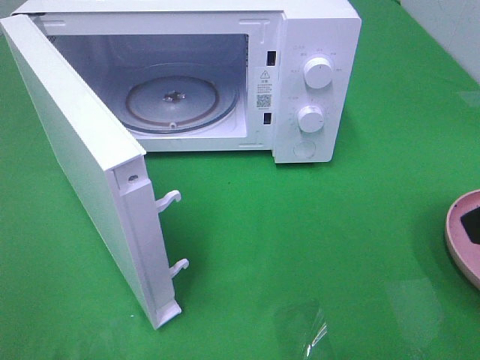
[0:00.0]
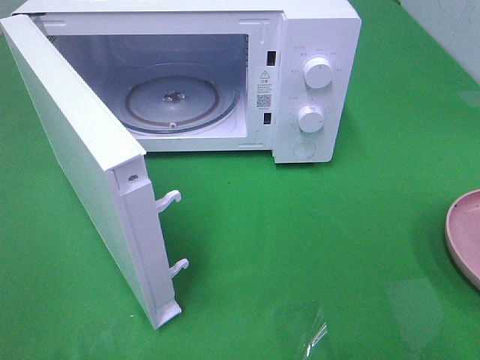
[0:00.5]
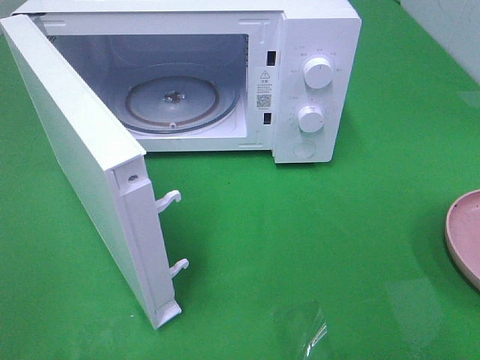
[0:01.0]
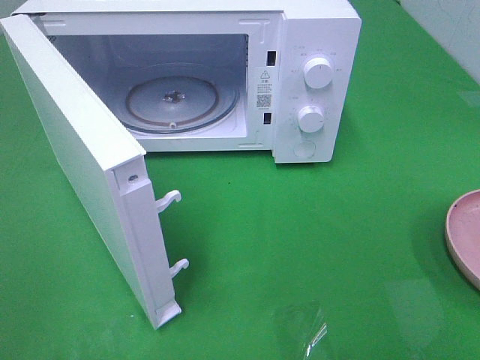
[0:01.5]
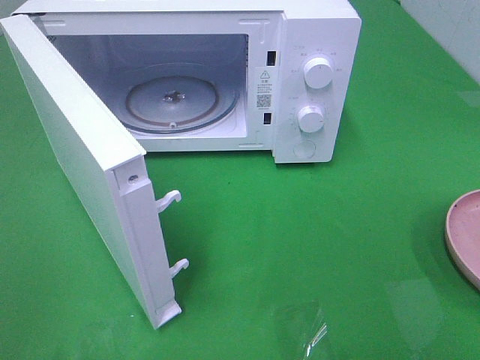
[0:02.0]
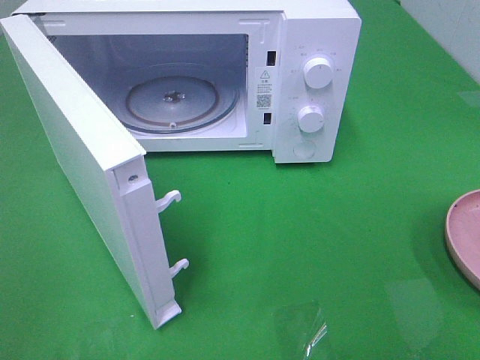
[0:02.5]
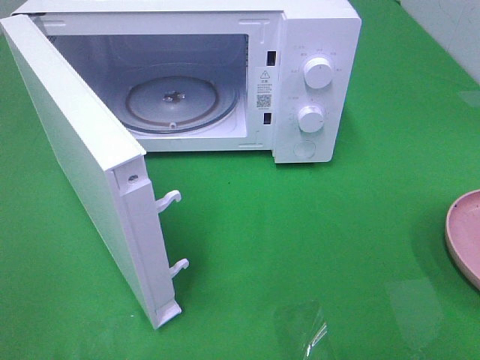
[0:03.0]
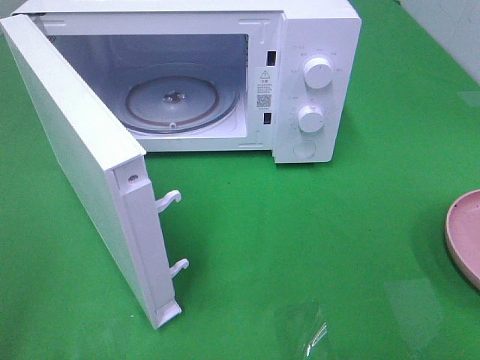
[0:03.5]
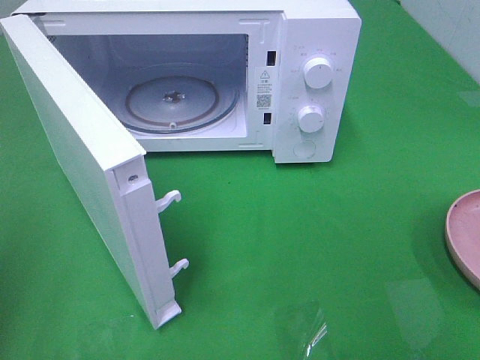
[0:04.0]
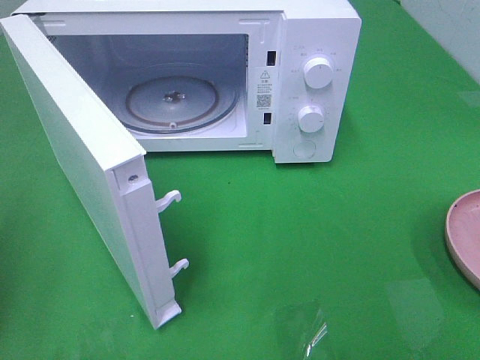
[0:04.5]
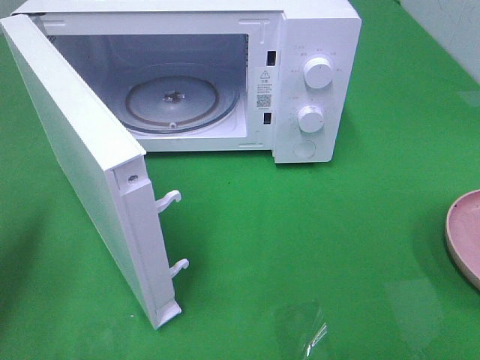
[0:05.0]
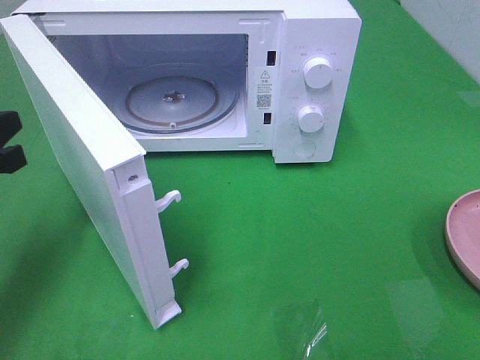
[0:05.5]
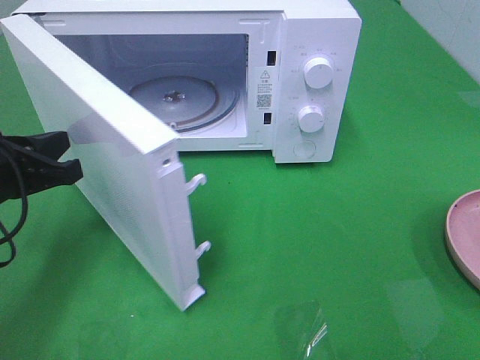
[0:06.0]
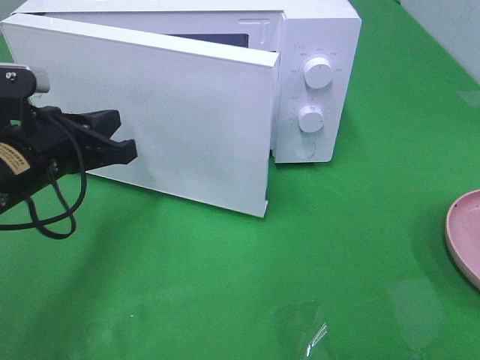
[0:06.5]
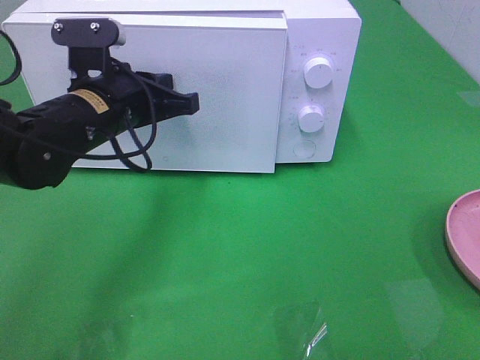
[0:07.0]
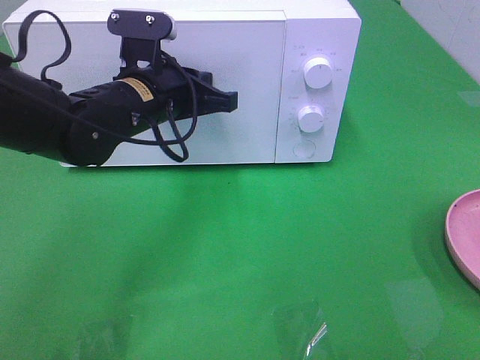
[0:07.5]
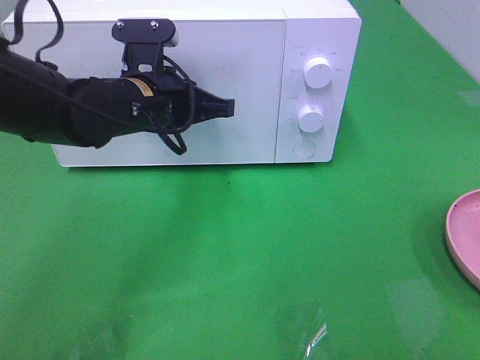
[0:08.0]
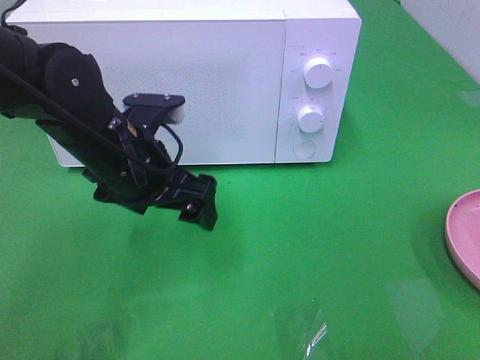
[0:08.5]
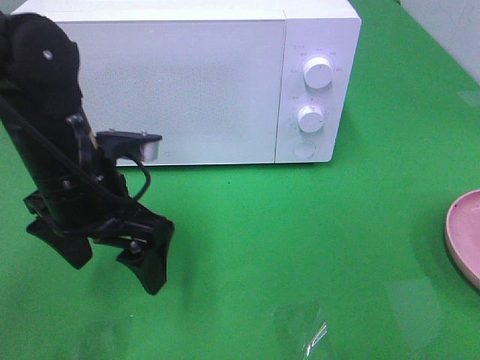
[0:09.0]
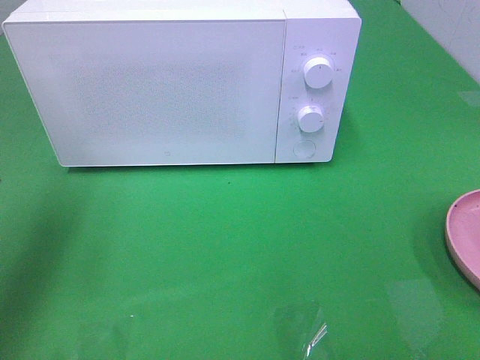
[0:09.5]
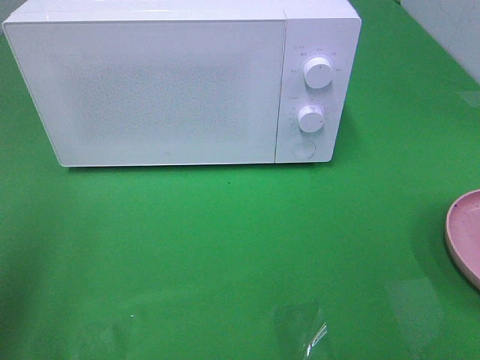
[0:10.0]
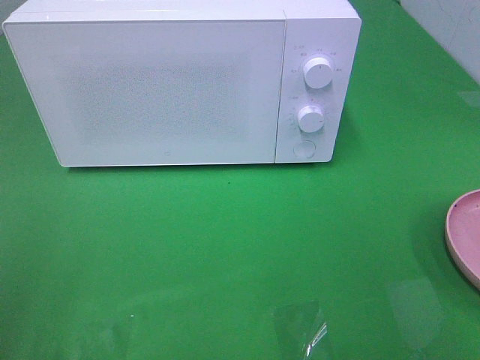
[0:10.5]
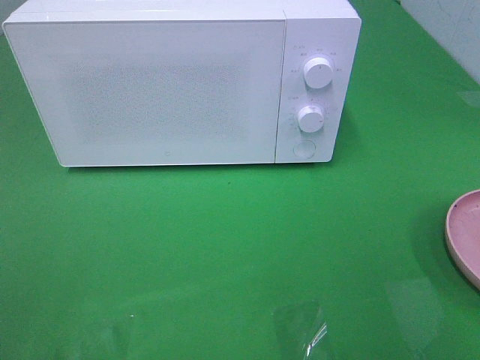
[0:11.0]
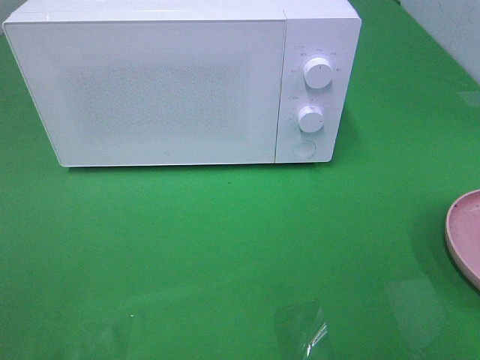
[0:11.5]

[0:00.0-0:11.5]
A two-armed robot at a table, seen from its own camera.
Task of the whole recording: Heat the burger.
Step, 0:00.0 to 0:07.5: Left hand: close the microwave door.
0:04.0 to 0:06.0: The left gripper travels downward, forward and to the right by roughly 20 cm.
0:06.0 to 0:07.5: The left gripper shifts about 20 cm to the right and forward.
0:07.5 to 0:09.5: The left gripper goes about 25 cm to the left, upward and backward, and opens its fingers.
0:09.5 to 0:11.5: The left gripper shifts roughly 25 cm backward.

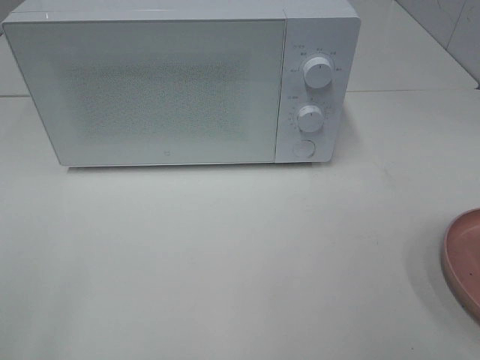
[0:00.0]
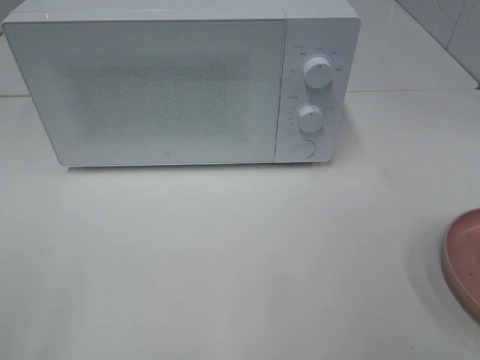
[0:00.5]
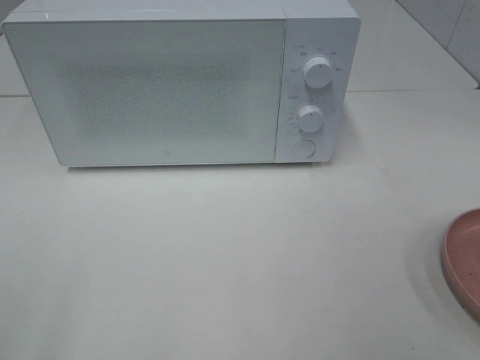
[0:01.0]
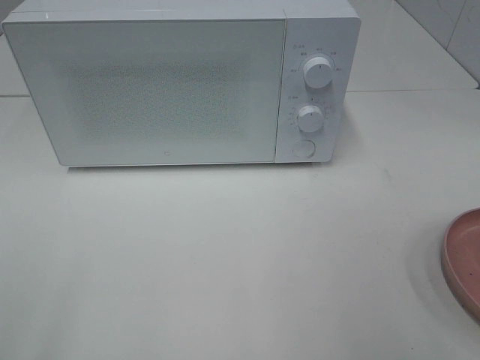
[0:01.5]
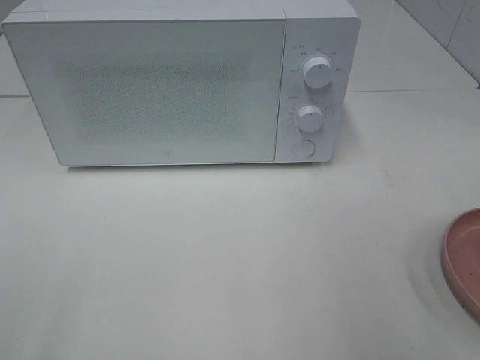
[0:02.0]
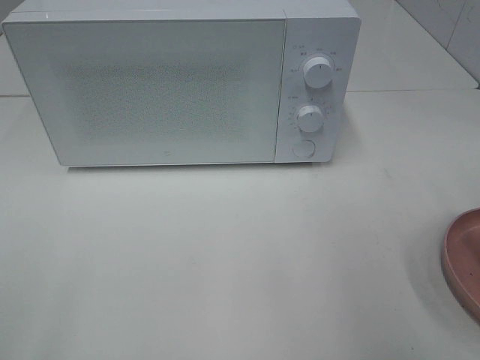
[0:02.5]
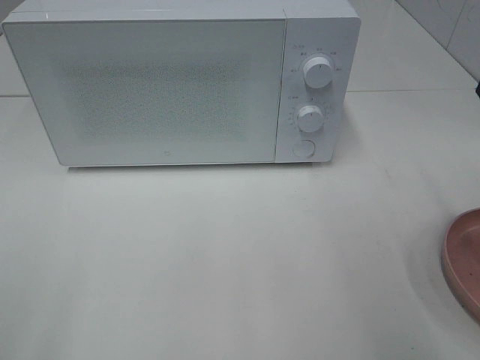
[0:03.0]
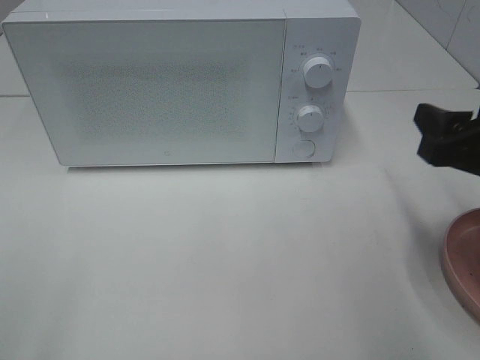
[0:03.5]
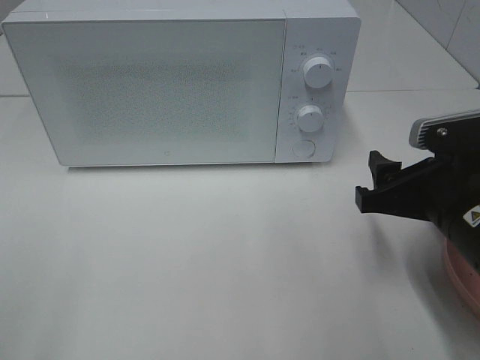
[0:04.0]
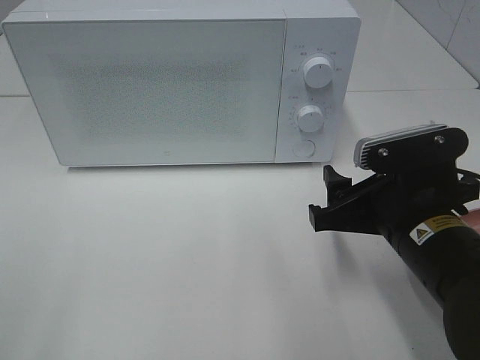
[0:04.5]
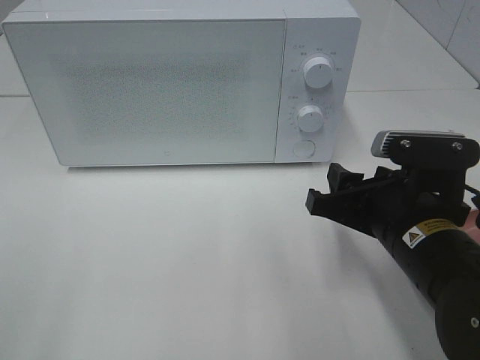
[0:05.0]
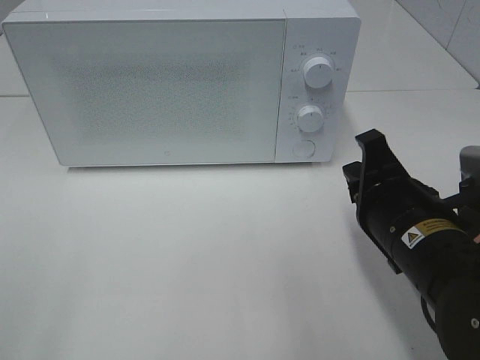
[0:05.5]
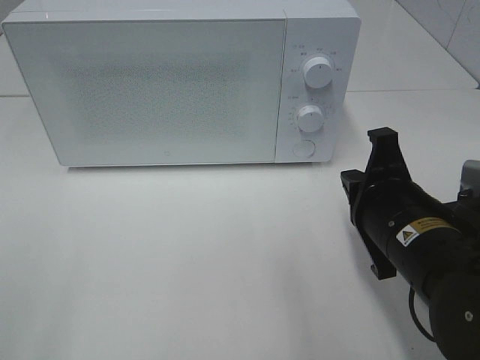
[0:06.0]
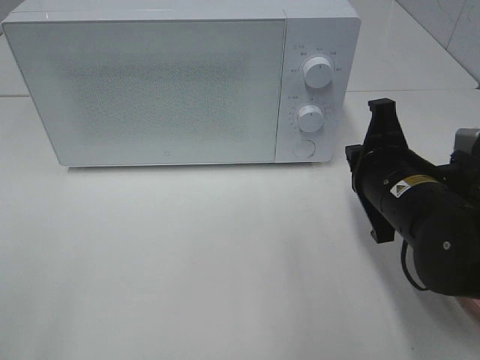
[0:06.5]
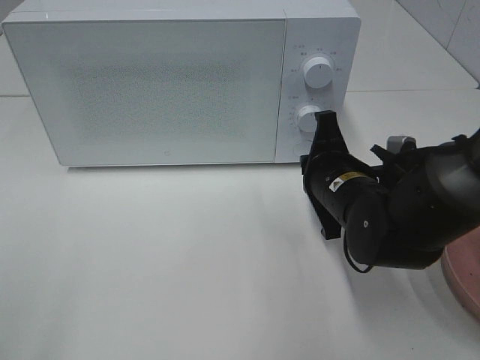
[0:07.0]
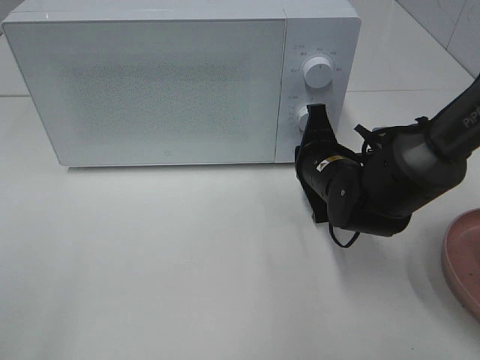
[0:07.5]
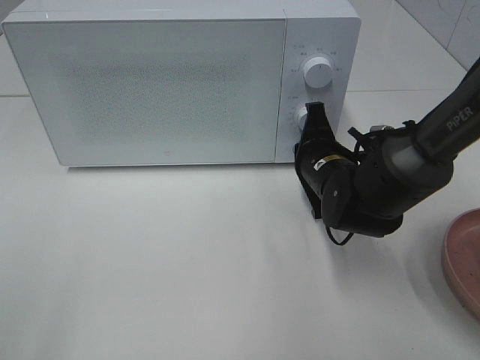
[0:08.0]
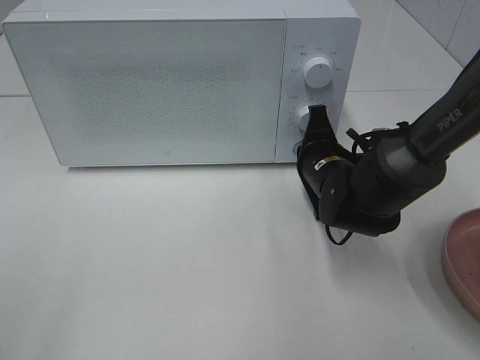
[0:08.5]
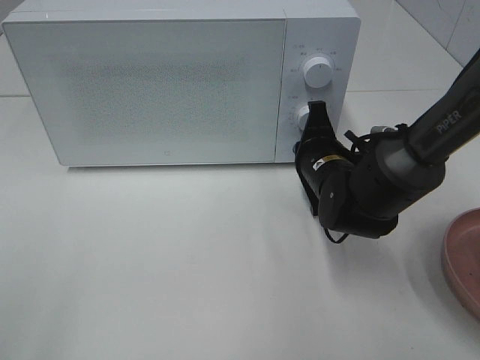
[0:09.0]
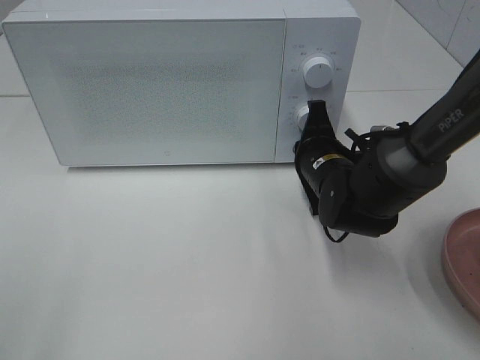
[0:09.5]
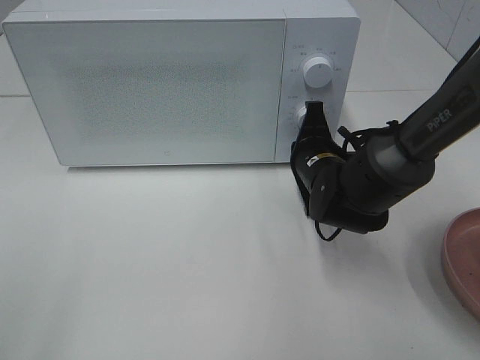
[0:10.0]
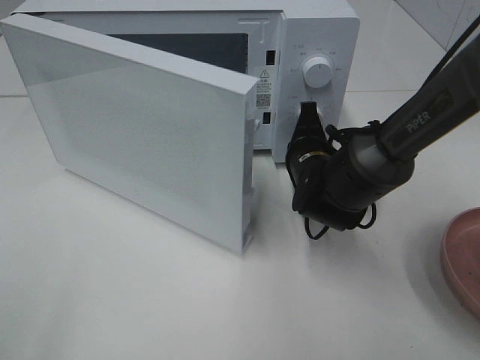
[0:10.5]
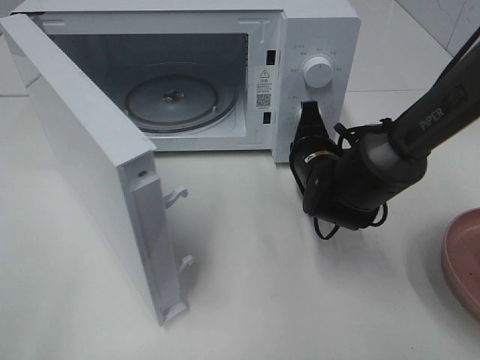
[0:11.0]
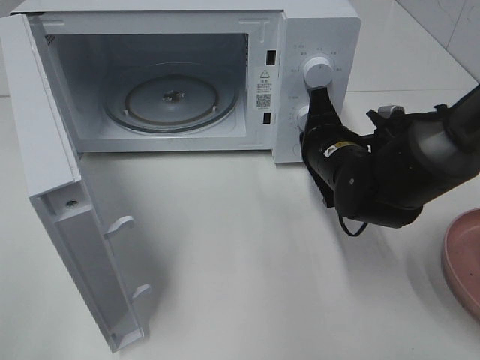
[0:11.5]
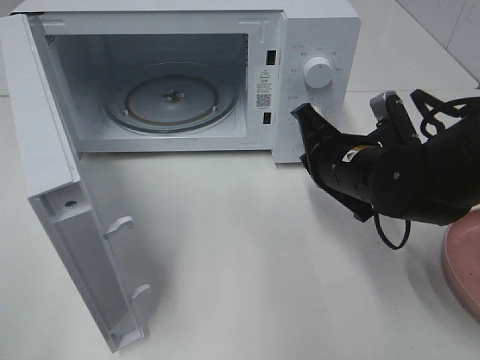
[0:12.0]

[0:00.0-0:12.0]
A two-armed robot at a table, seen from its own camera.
Task of the whole recording: Heat the burger.
Step, 0:00.0 to 0:11.0: Right hand: press the switch.
0:02.0 to 0:04.0: The right gripper goes about 20 cm downward, to the left and forward.
0:04.0 to 0:06.0: The right gripper shifts by some 5 cm, and closes its fingers.
0:06.0 to 0:08.0: The right gripper shifts some 15 cm forward and downward.
0:08.0 to 0:10.0: Both grippers stay about where they are.
0:10.0 to 0:12.0: The right gripper goes approximately 5 cm backward and upward.

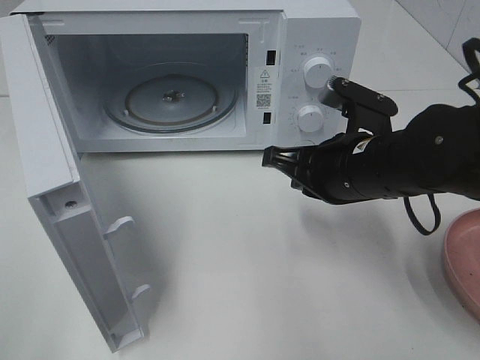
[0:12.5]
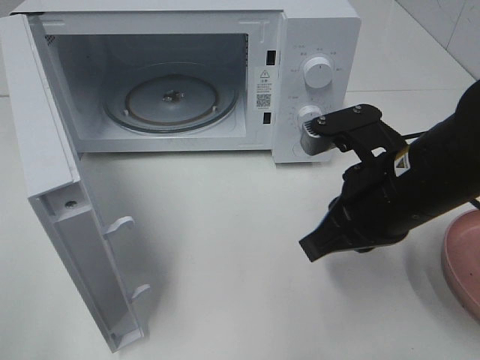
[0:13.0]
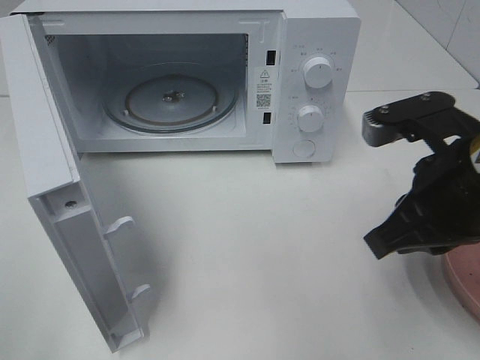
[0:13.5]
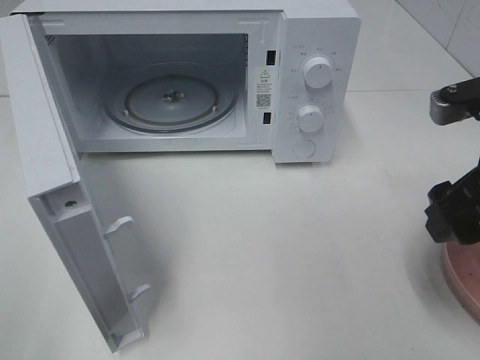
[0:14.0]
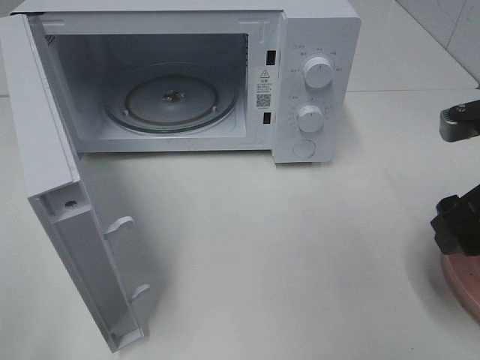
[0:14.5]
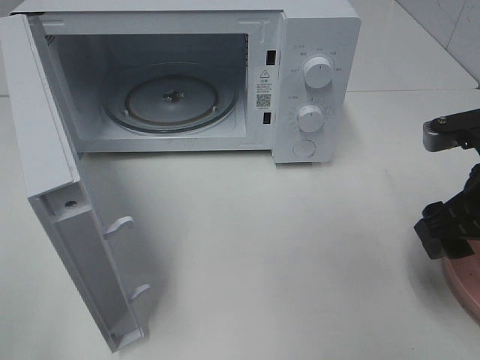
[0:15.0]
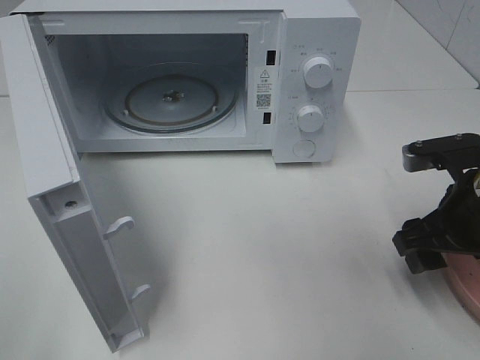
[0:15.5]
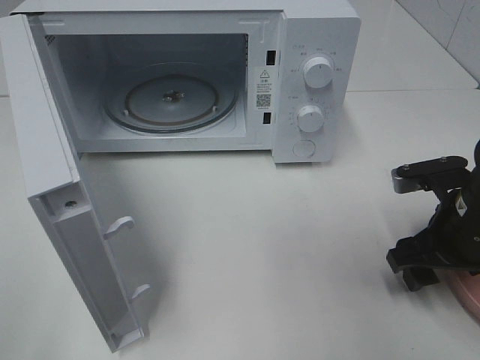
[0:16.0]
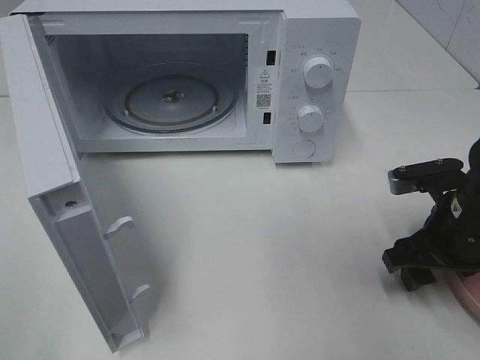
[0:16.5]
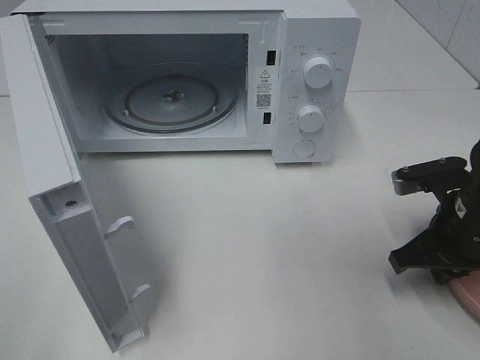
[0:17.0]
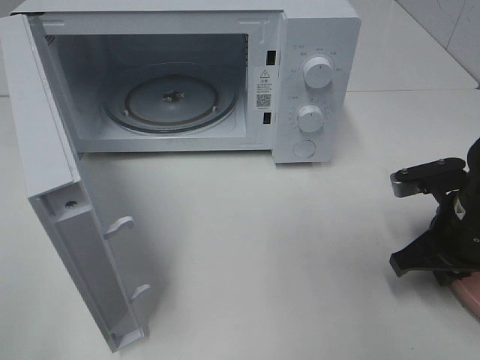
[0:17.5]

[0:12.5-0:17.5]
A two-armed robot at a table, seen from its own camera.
Task of the whole recording: Heat the burger.
0:12.5 to 0:15.0: The right gripper is displaced to the right by some 10 cm, and opens.
0:15.0 to 0:17.5: The right gripper goes approximately 10 cm downward, and closes.
